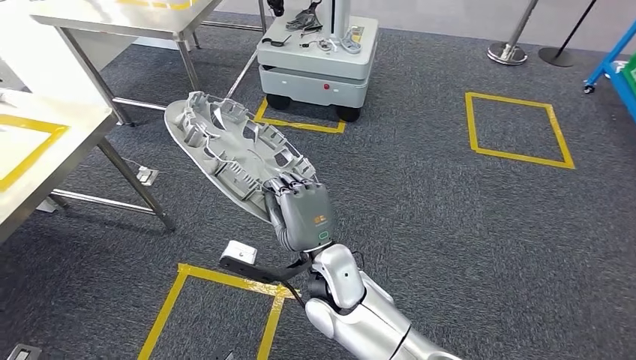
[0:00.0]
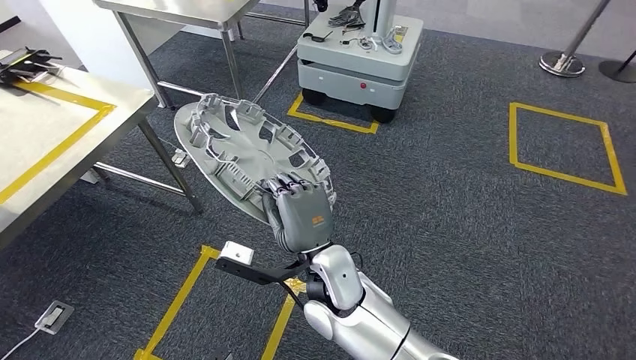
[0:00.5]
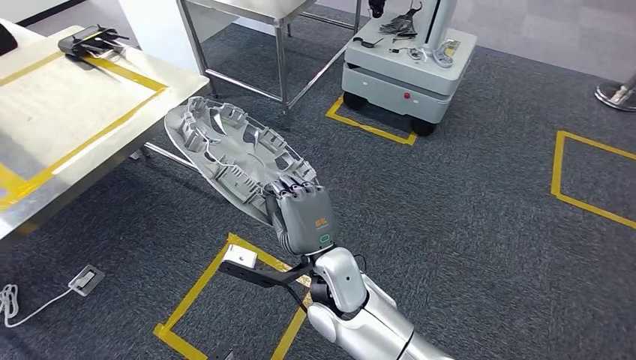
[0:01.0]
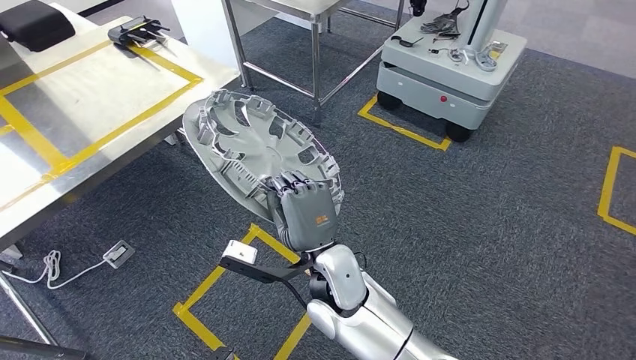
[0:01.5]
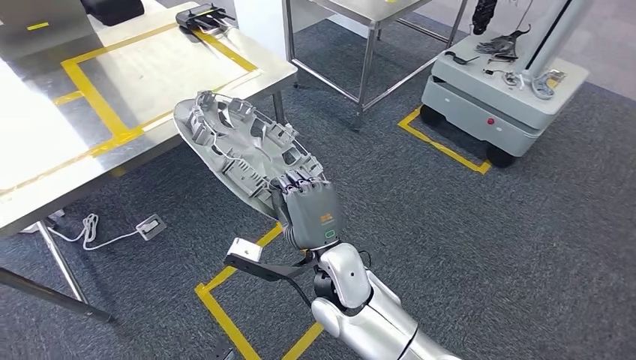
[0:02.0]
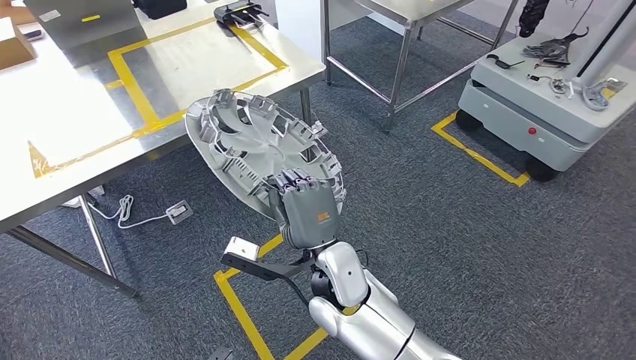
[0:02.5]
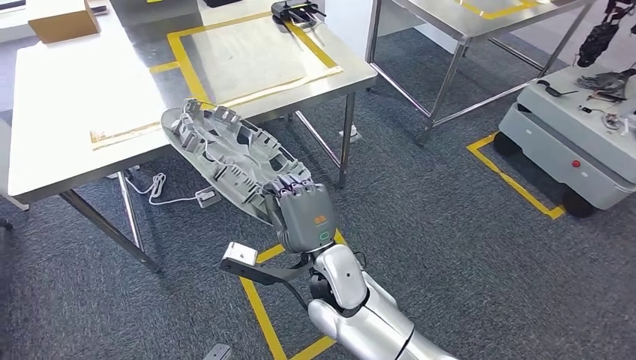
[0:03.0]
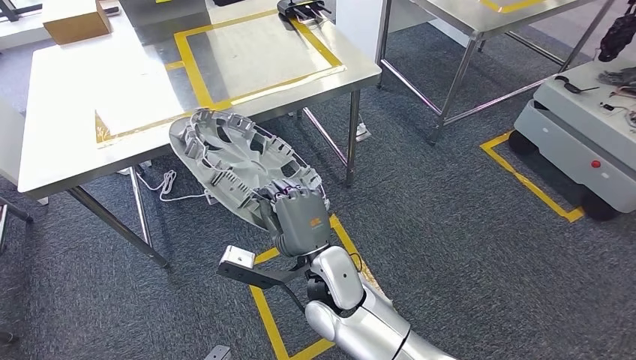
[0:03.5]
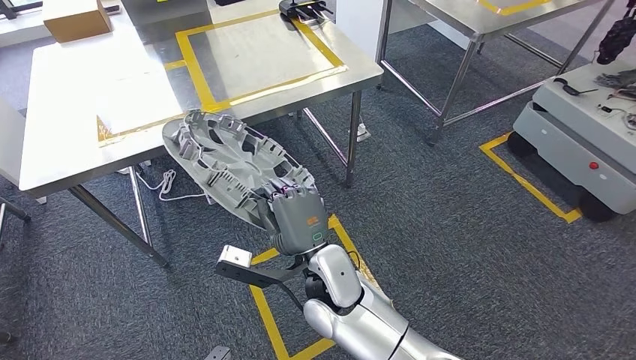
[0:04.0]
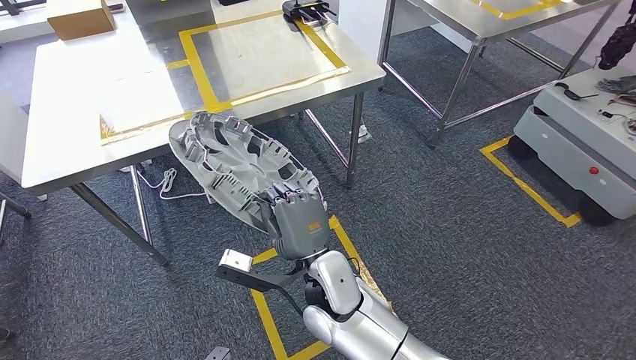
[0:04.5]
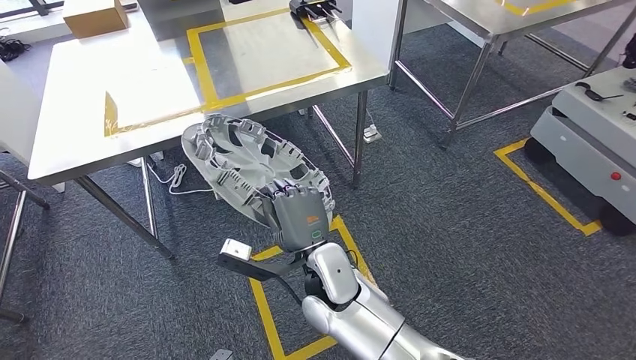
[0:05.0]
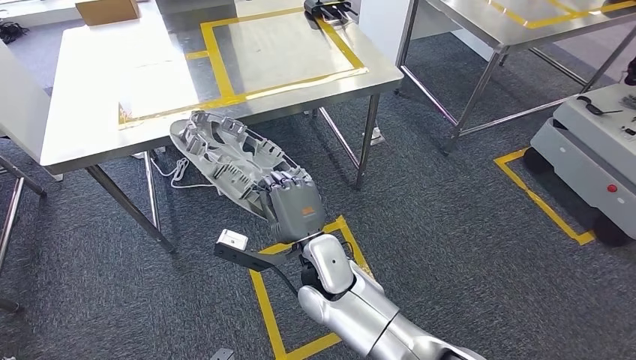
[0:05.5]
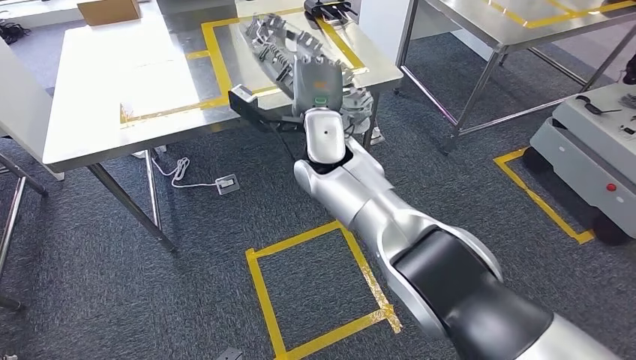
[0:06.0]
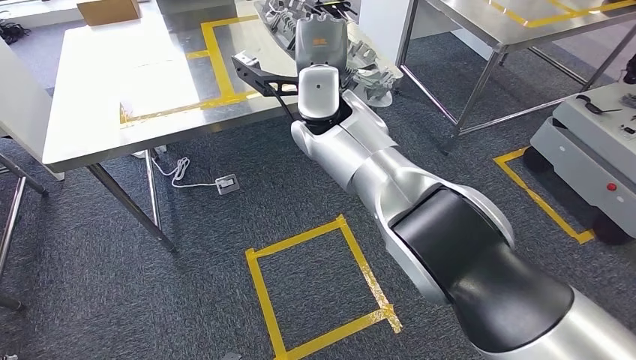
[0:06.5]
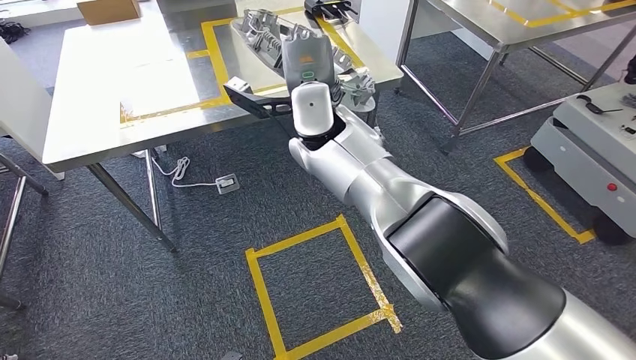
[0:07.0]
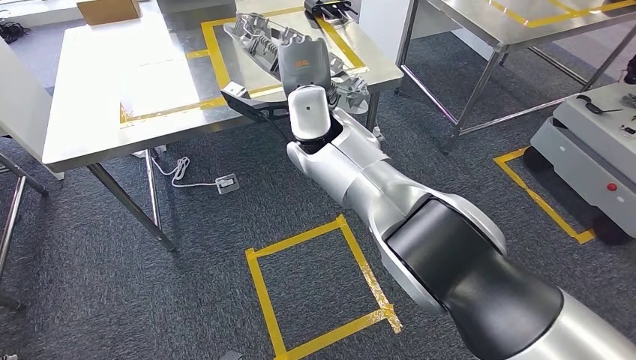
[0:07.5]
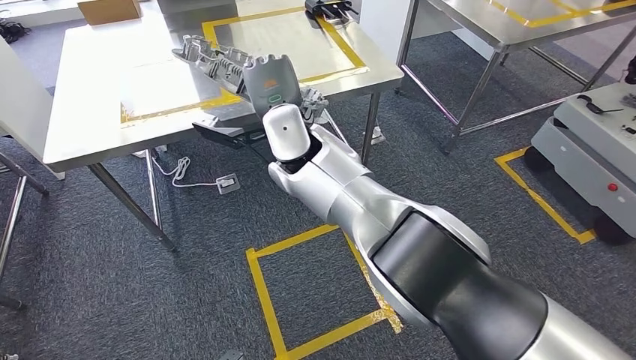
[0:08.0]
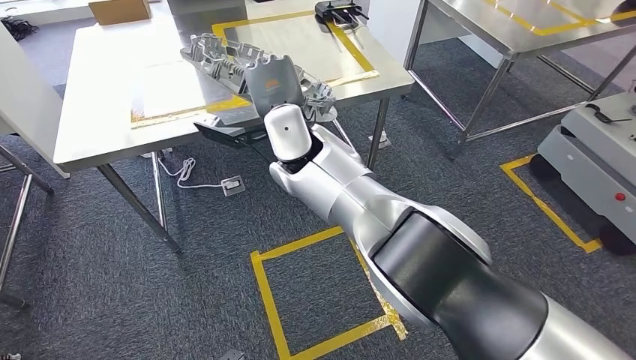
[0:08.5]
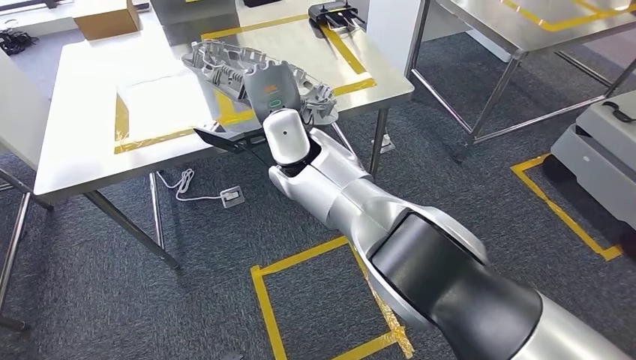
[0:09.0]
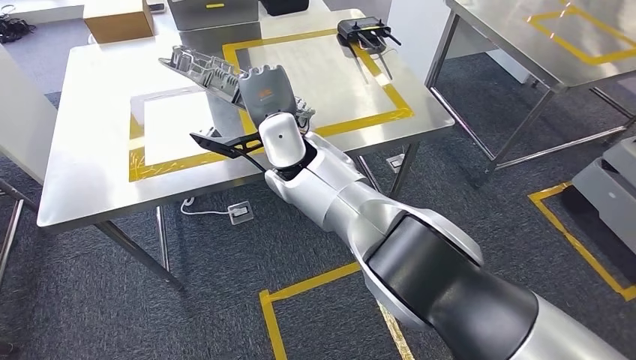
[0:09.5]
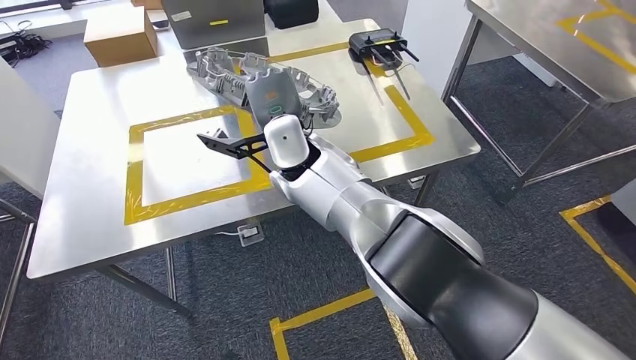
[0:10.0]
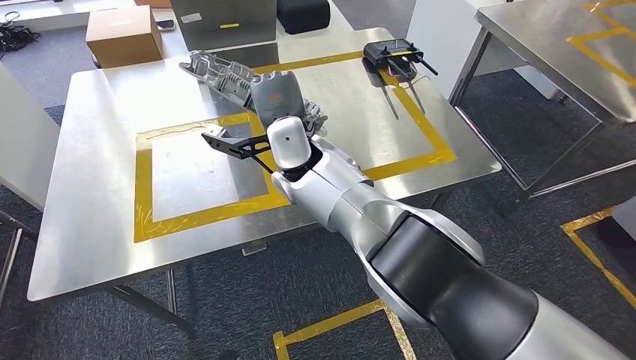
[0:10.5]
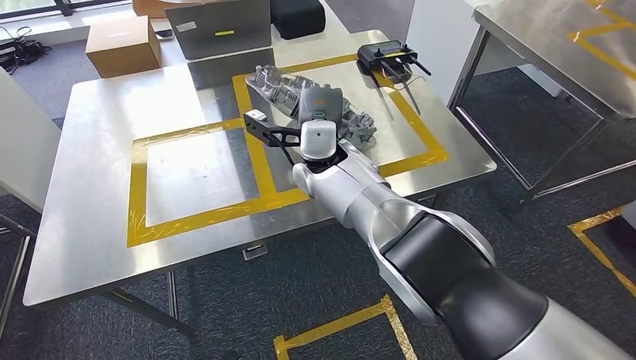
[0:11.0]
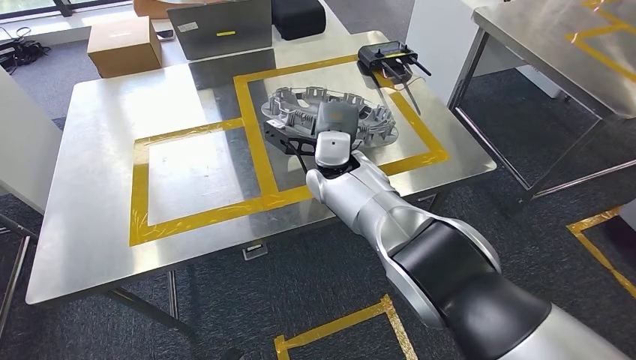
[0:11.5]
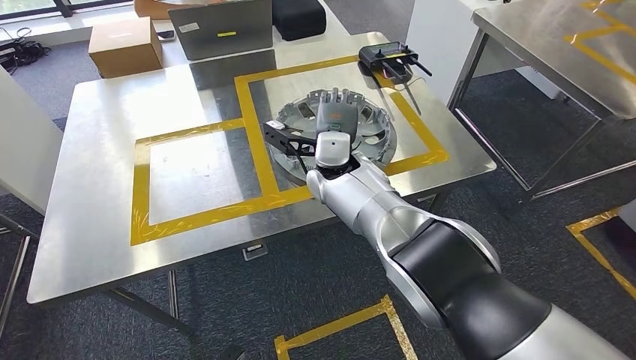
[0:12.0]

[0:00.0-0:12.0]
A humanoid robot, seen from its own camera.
Step, 0:00.0 to 0:09.5: Move the small component to the workbench.

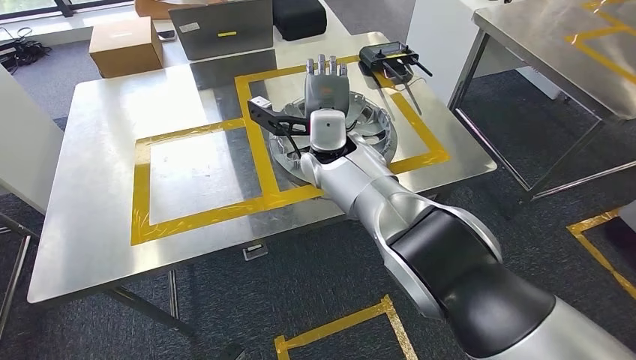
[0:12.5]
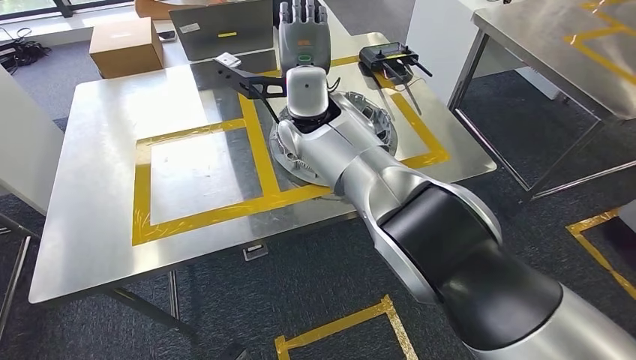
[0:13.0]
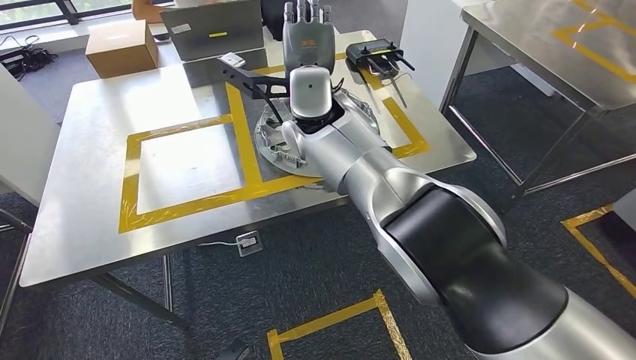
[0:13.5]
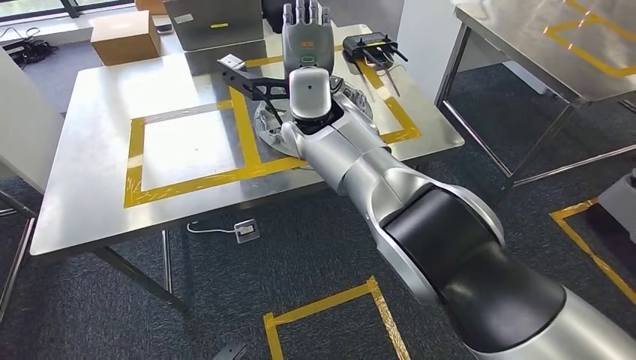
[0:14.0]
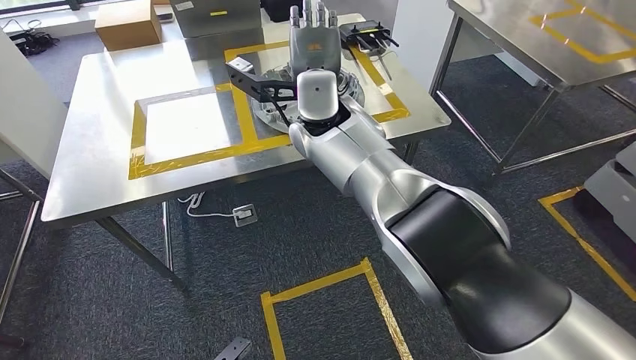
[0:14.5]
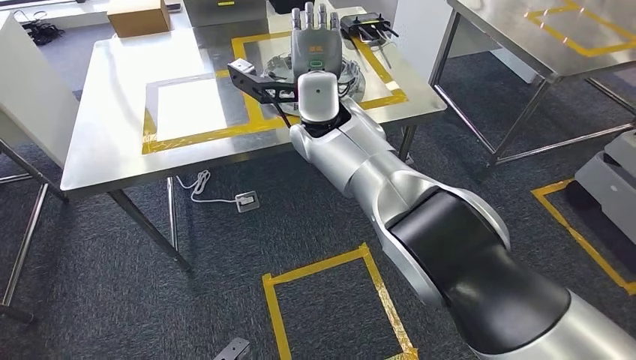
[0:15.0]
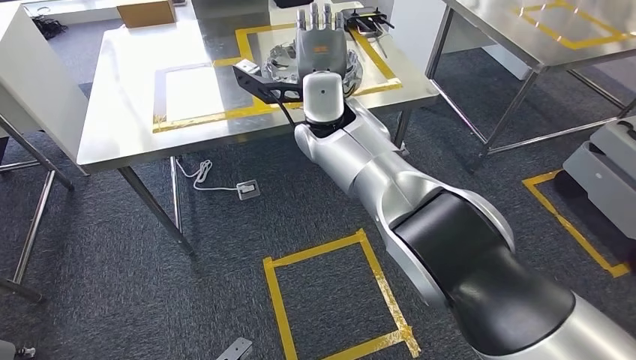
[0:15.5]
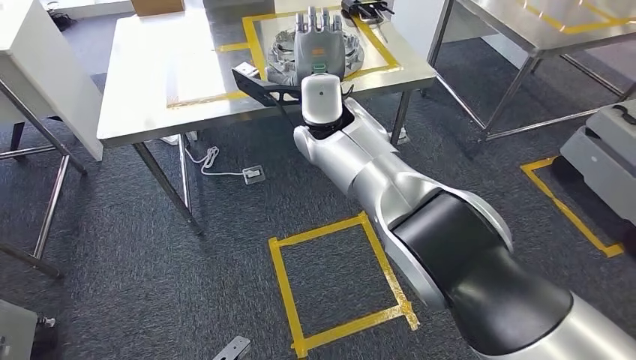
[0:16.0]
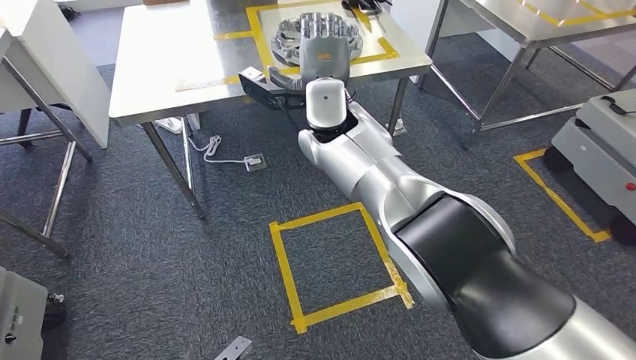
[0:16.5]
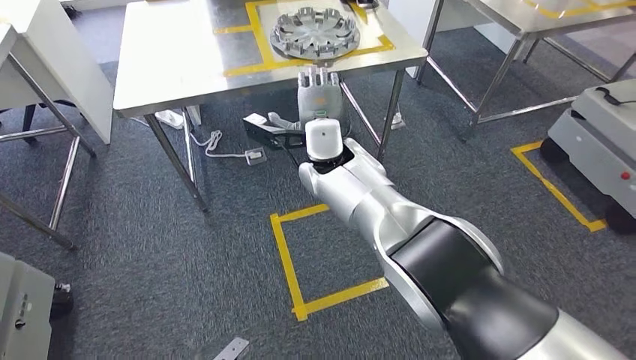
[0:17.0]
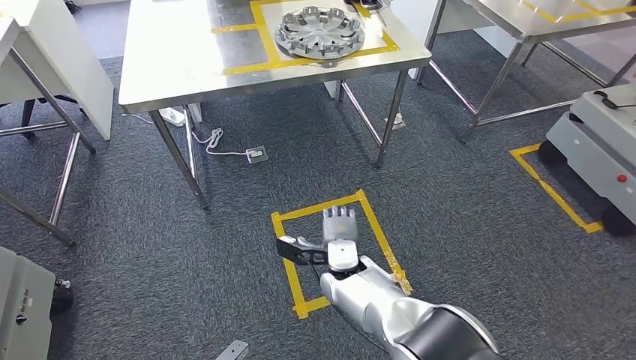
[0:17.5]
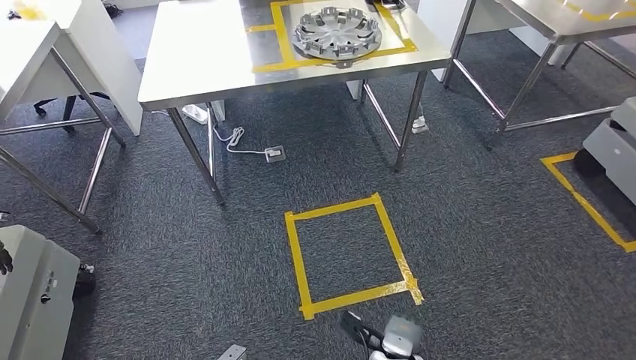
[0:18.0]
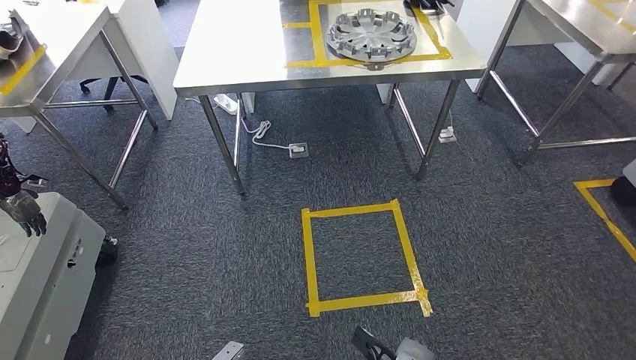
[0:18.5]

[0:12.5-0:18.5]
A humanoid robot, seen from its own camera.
Step, 0:14.0 to 0:18.5: Move to the initial position at the workbench.

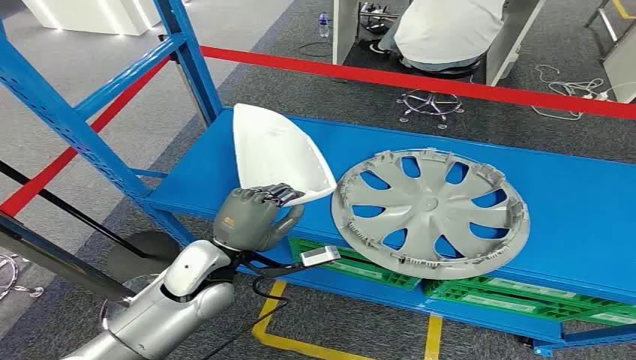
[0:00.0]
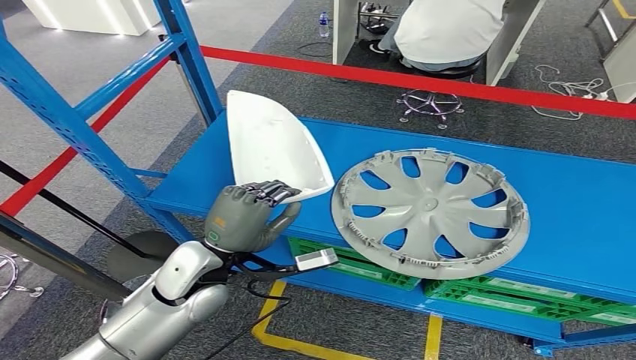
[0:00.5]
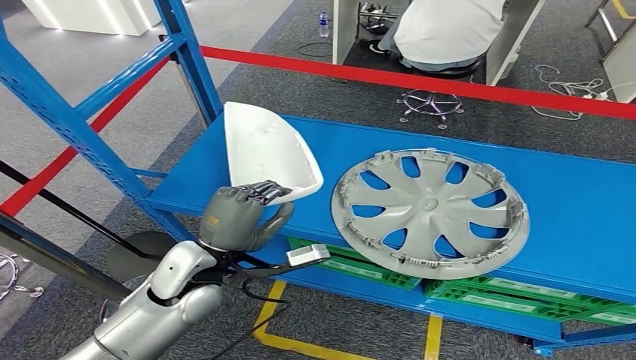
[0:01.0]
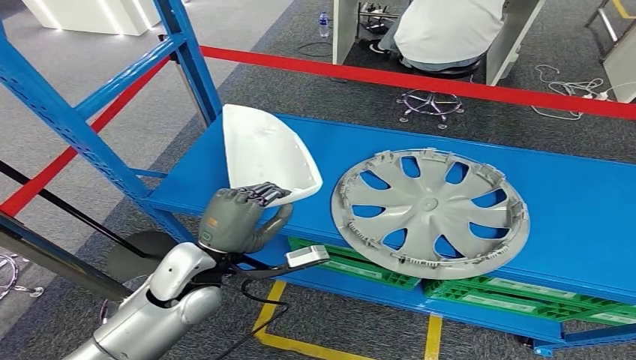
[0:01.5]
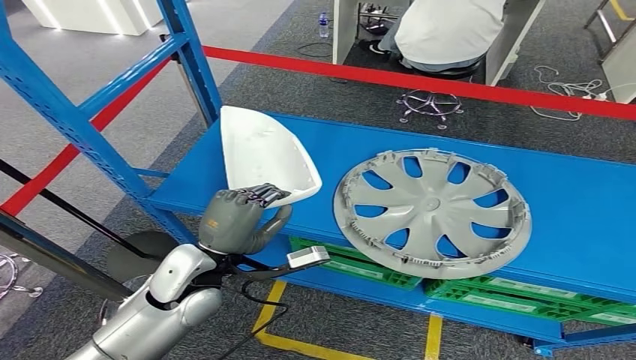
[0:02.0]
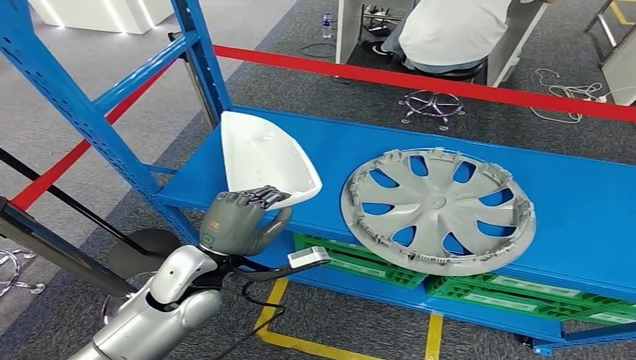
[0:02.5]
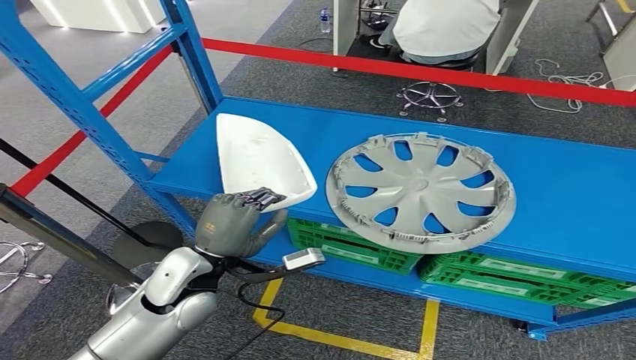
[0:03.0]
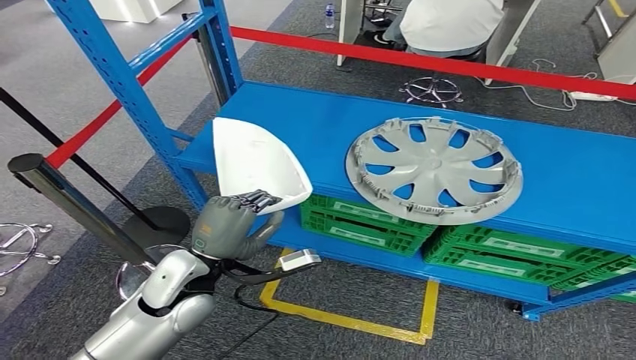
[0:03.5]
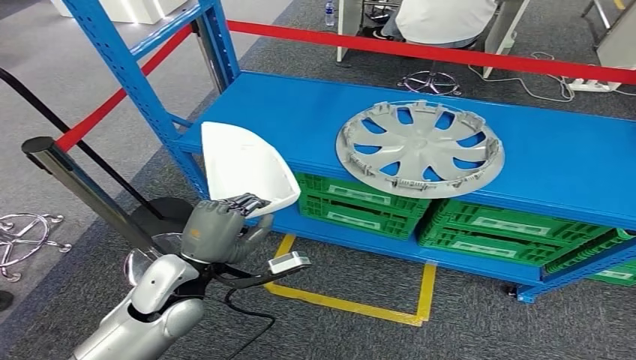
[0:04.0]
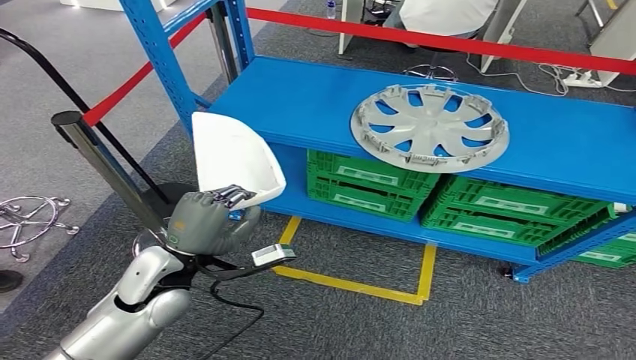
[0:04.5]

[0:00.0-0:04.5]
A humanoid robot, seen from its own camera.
Step, 0:00.0 to 0:03.0: Pick up the small component from the shelf.
